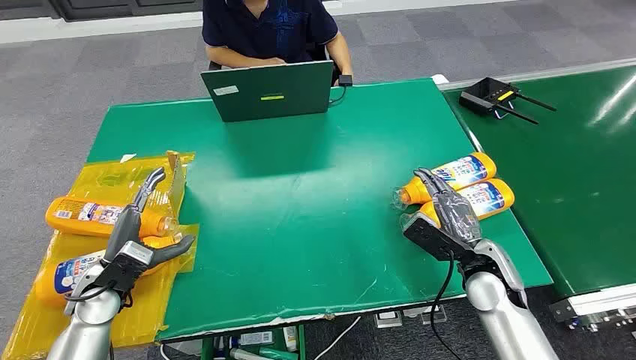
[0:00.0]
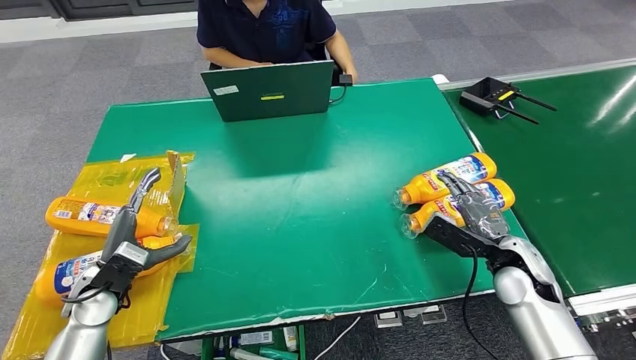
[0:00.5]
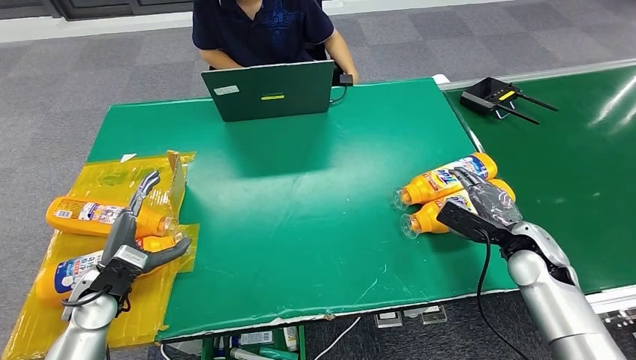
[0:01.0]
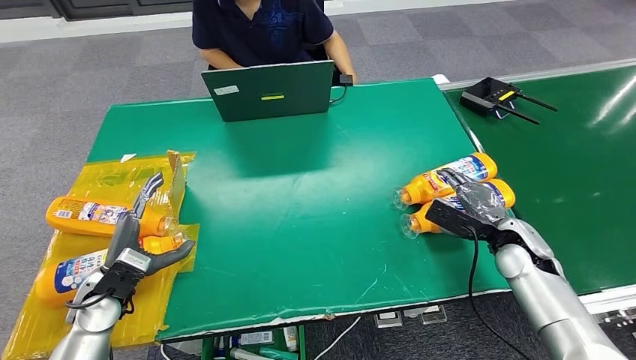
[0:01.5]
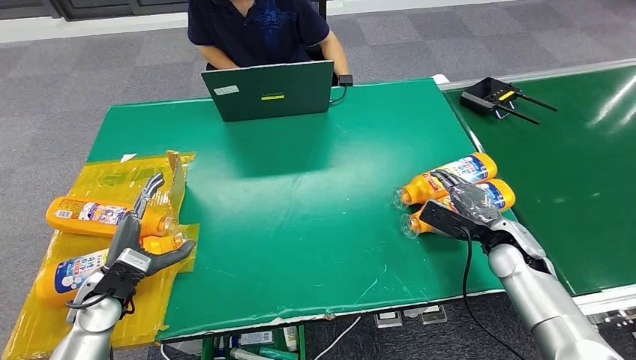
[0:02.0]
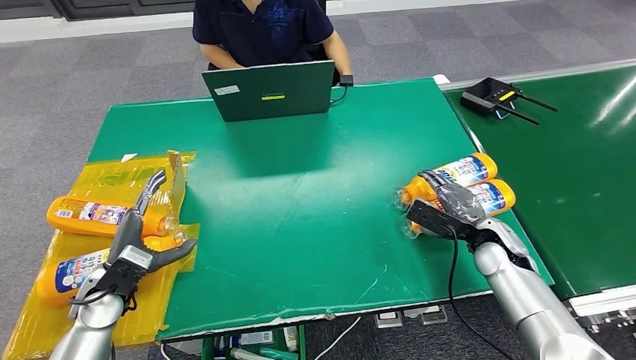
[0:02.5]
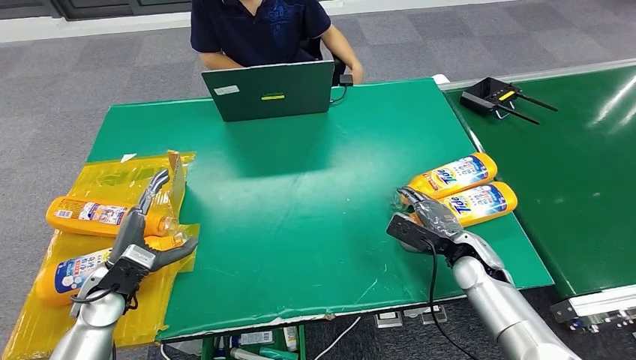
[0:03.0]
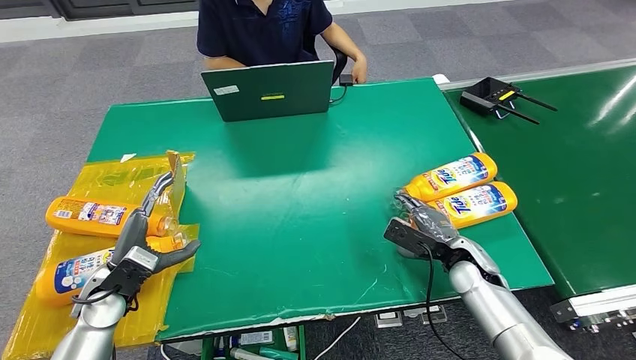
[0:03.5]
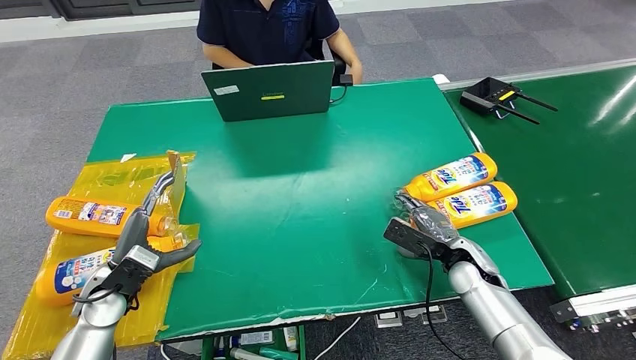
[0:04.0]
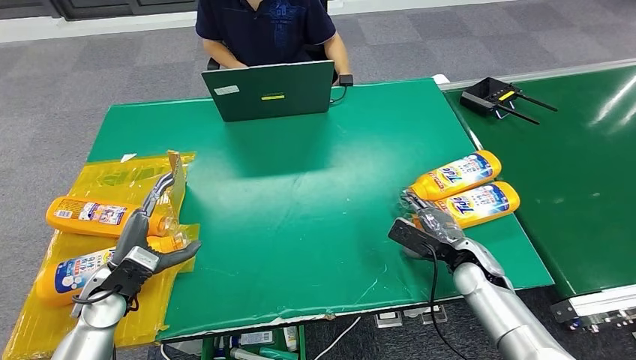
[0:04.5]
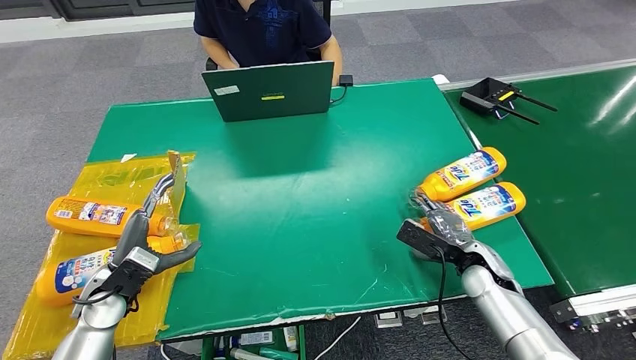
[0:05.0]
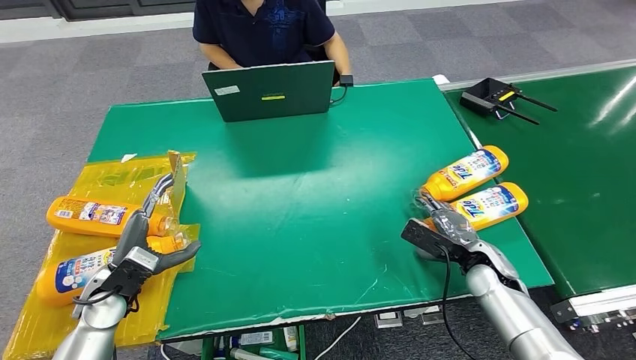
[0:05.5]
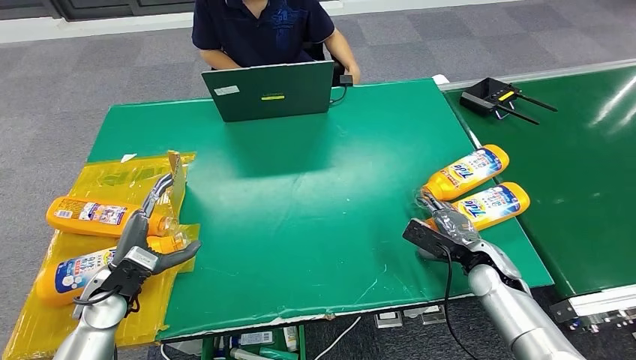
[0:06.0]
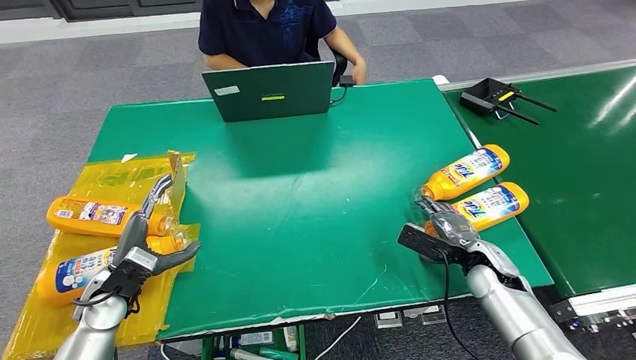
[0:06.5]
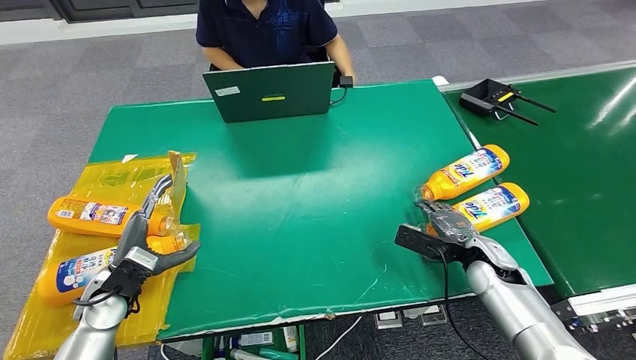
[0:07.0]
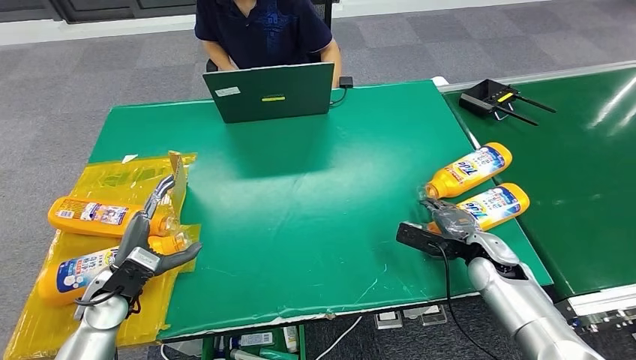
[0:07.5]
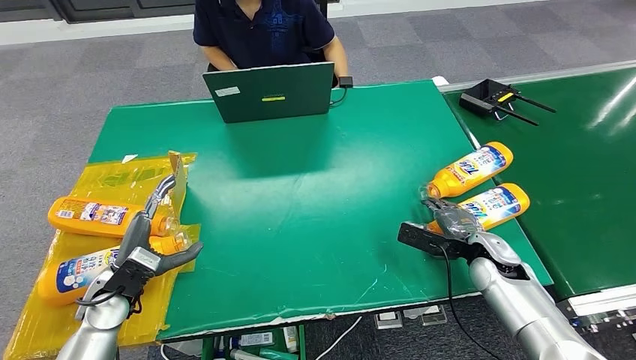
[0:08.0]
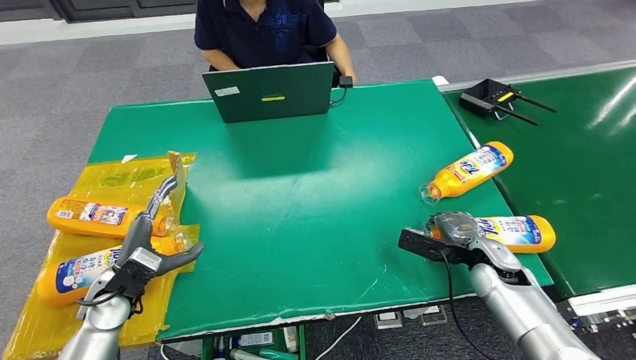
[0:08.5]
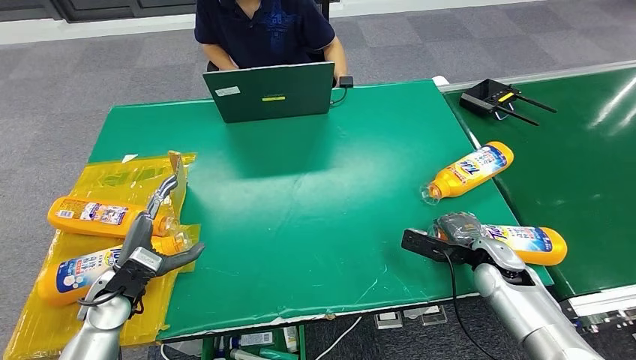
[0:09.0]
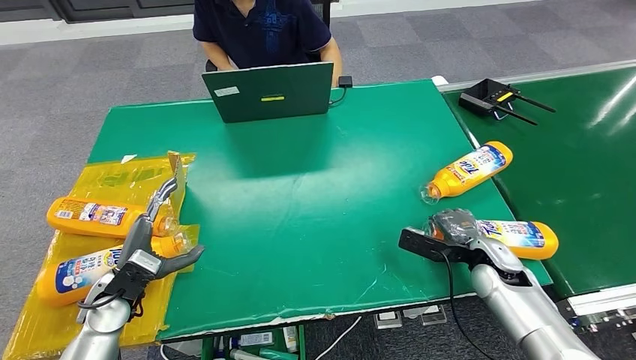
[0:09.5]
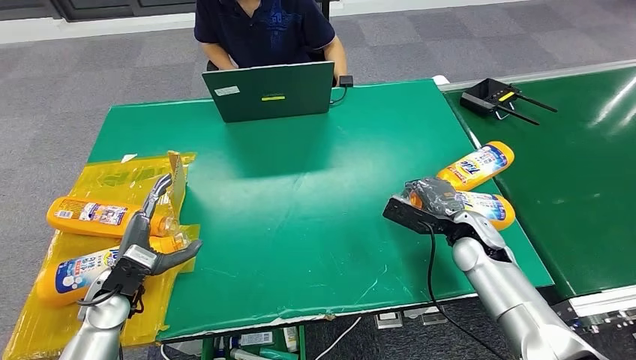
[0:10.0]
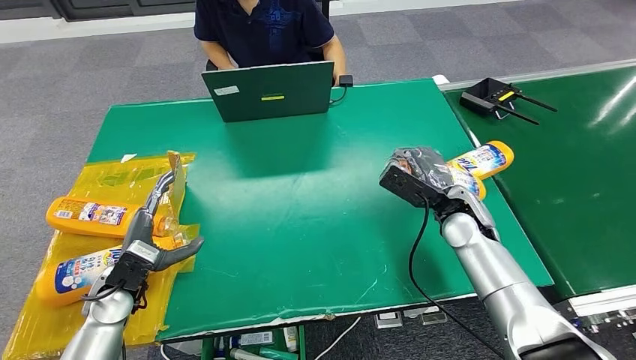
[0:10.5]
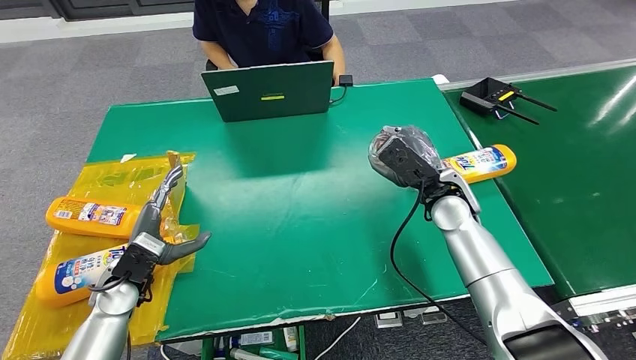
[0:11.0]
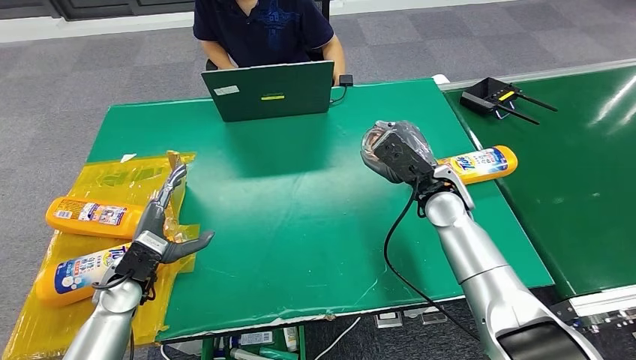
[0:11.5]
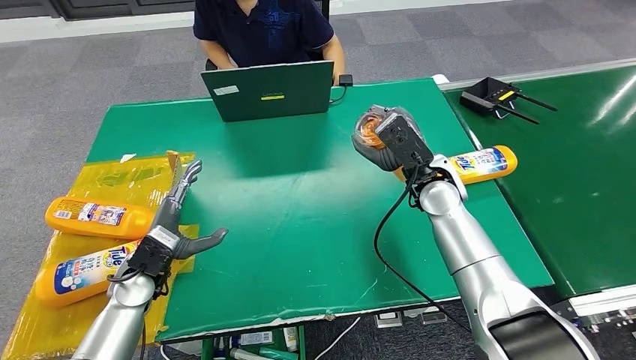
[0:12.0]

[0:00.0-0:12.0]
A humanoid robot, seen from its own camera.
Step, 0:00.0 to 0:10.0: Pick up the bottle from the table.
0:02.0 to 0:04.0: The right hand shifts roughly 10 cm to the left and downward.
0:04.0 to 0:06.0: The hands make only small movements.
0:06.0 to 0:08.0: There are only small adjustments of the hands.
0:08.0 to 0:10.0: The right hand shifts by approximately 5 cm.
0:10.0 to 0:12.0: The left hand moves some 5 cm. Meanwhile the right hand heads to the left and upward, covering some 15 cm.

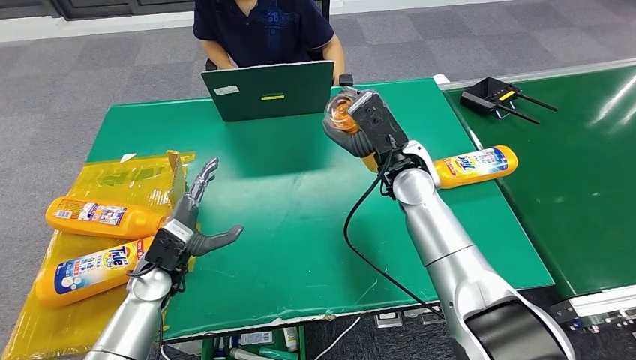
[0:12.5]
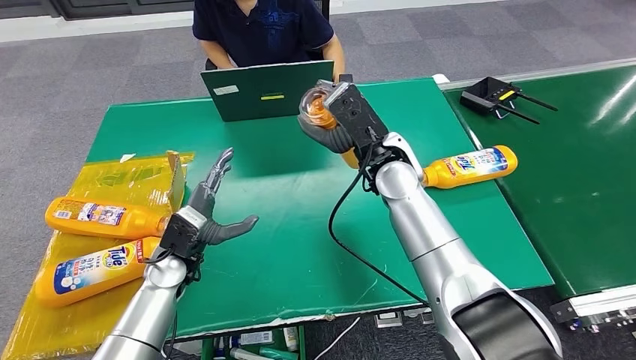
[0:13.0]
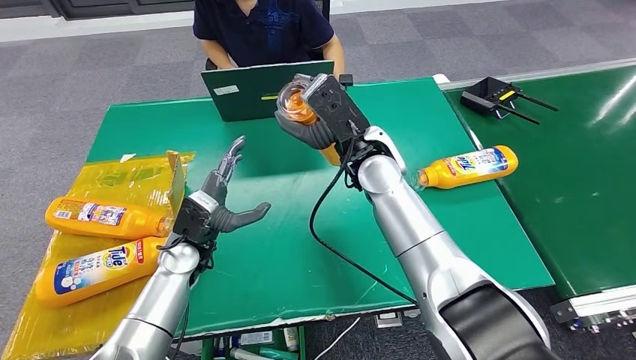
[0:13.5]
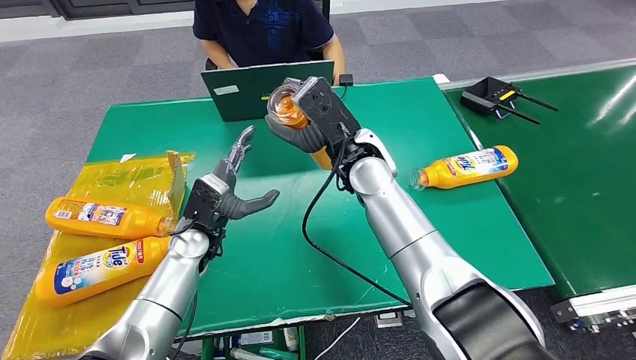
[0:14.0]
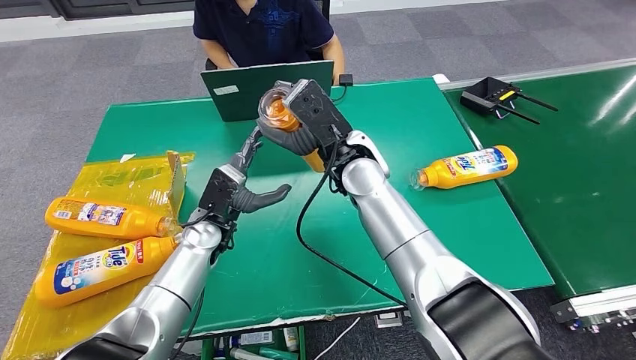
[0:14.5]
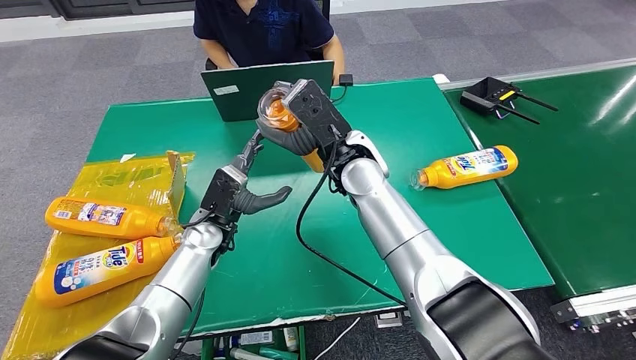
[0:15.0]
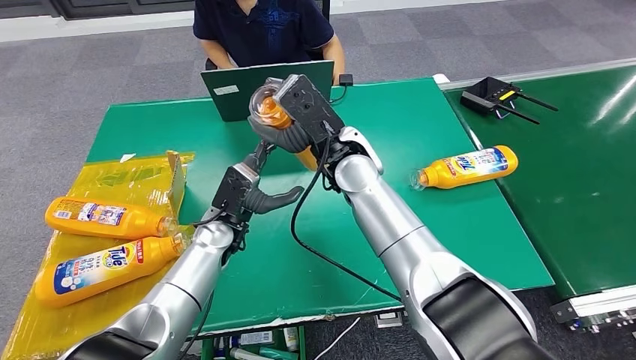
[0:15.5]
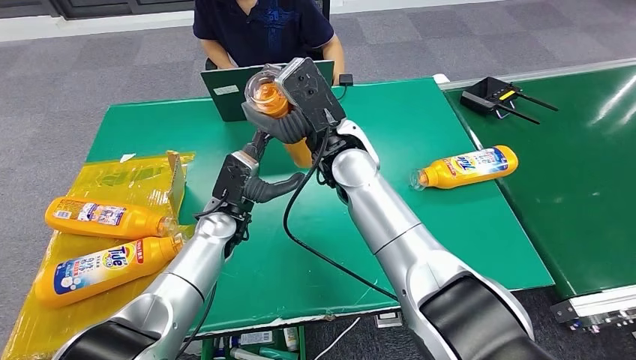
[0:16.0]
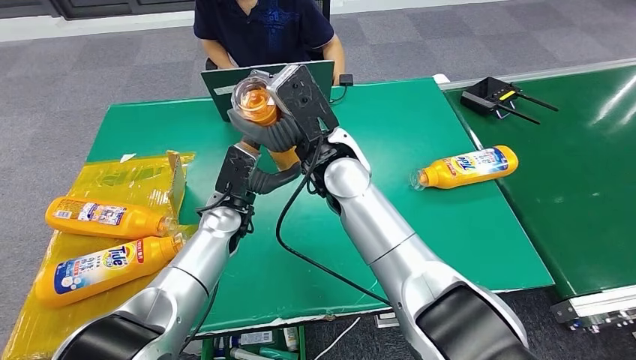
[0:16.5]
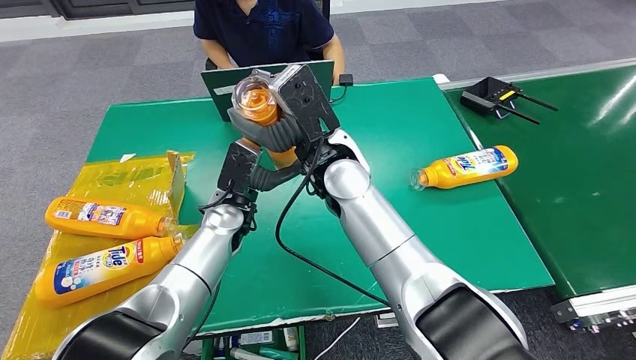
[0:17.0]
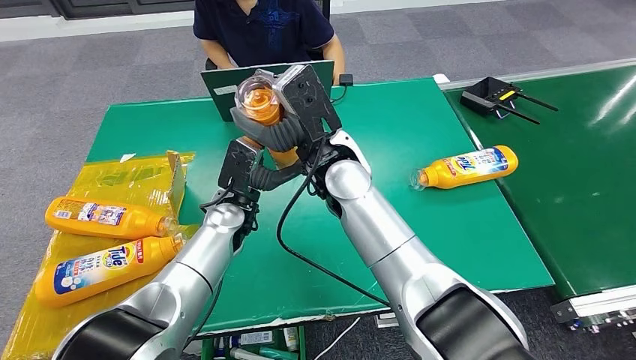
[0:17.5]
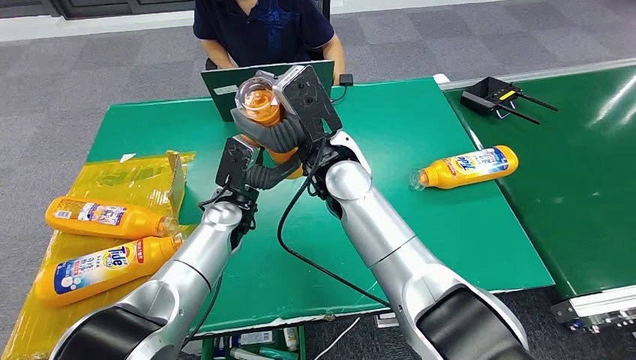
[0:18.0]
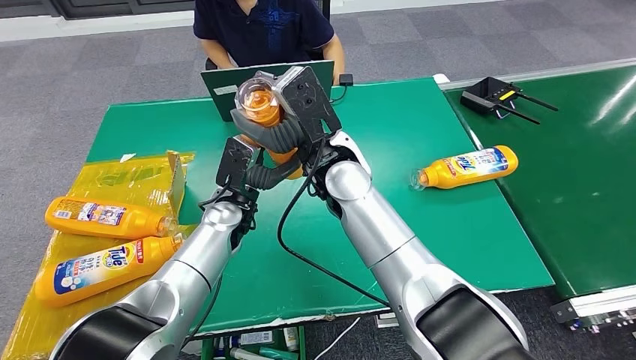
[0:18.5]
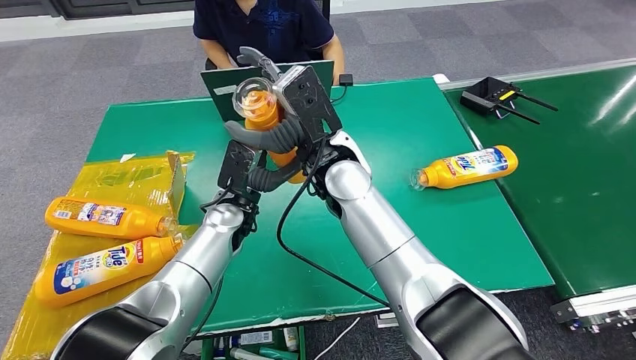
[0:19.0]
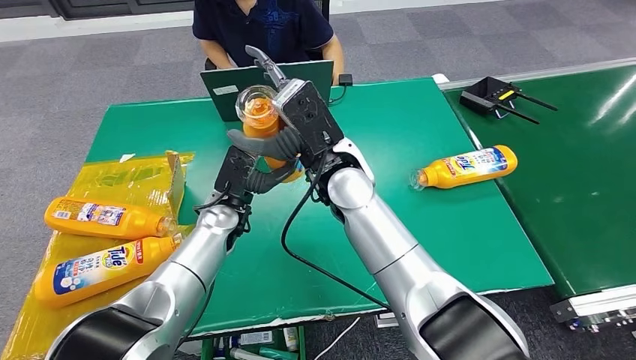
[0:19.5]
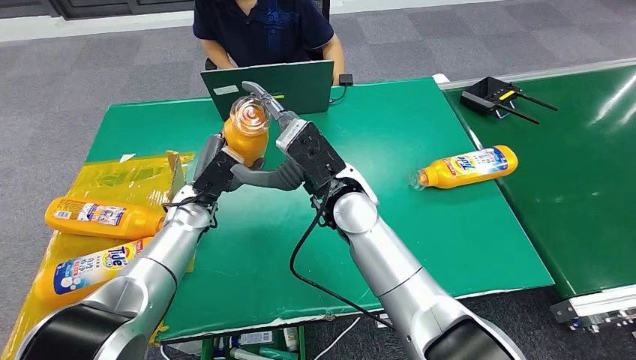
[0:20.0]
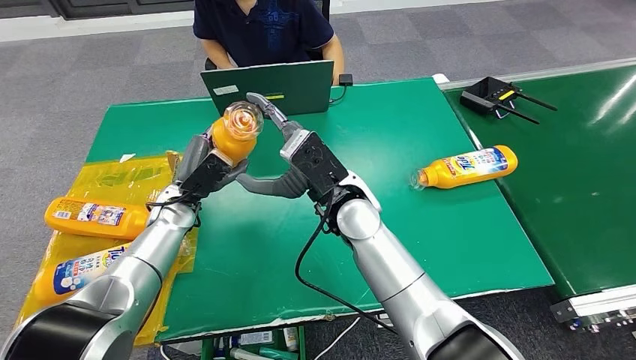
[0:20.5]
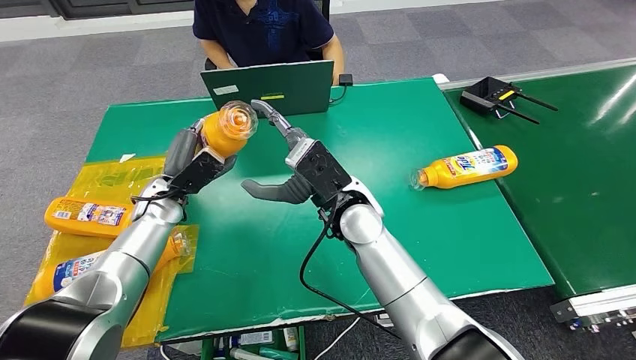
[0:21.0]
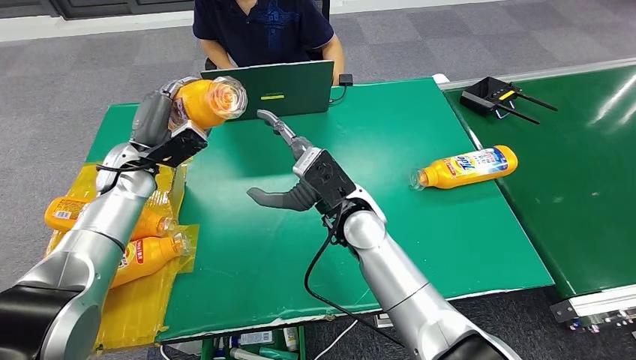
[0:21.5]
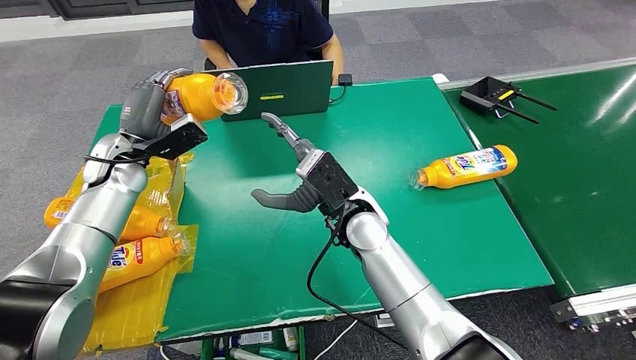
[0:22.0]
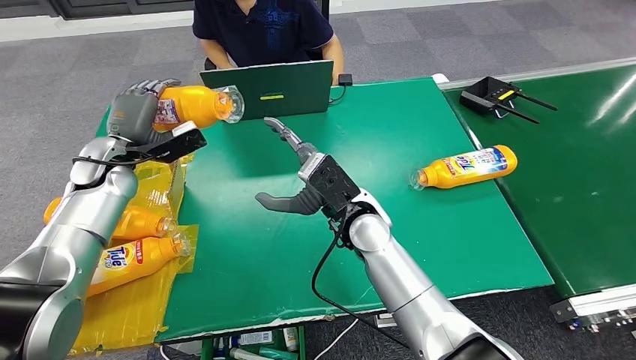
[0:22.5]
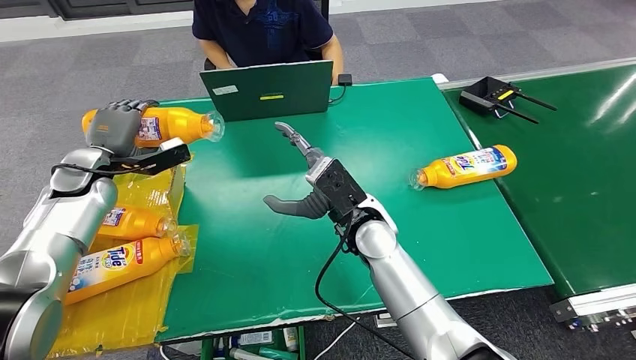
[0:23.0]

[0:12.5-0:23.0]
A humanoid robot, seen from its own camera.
0:14.5 to 0:16.5: The left hand changes place by roughly 5 cm.
0:16.5 to 0:19.0: The hands make only small movements.
